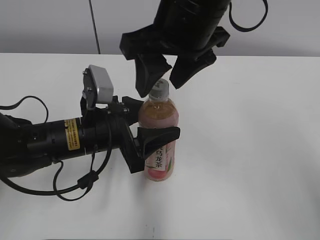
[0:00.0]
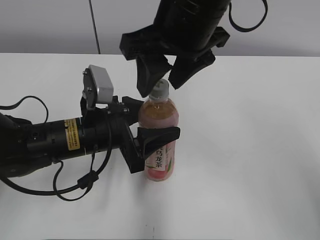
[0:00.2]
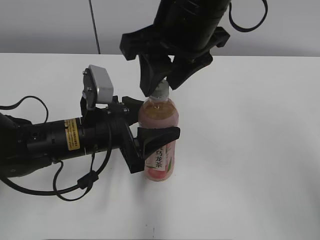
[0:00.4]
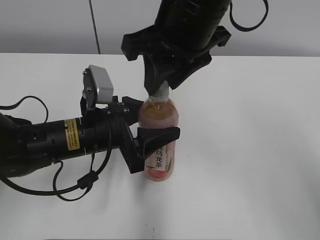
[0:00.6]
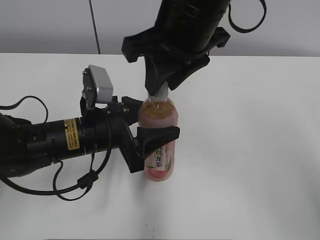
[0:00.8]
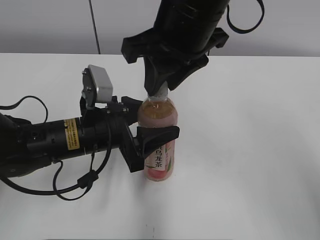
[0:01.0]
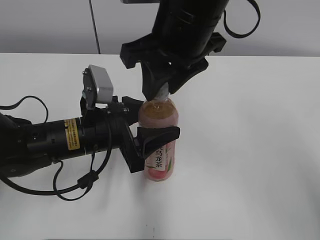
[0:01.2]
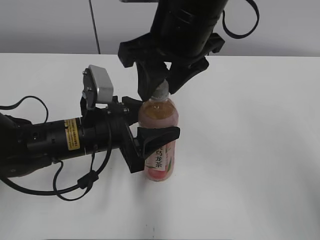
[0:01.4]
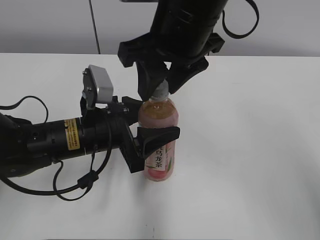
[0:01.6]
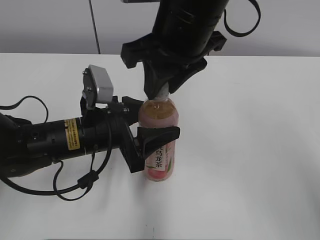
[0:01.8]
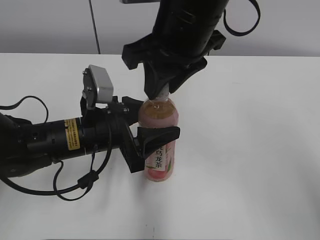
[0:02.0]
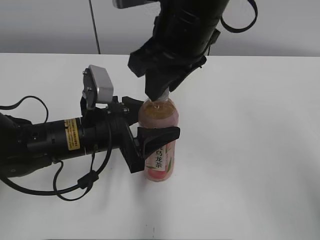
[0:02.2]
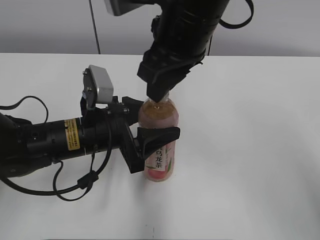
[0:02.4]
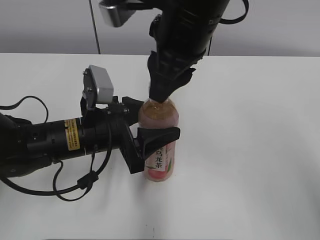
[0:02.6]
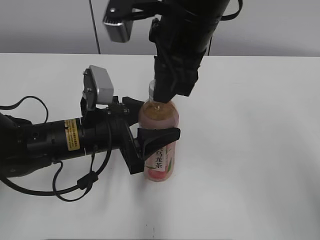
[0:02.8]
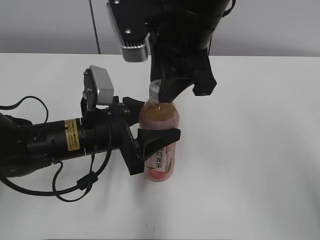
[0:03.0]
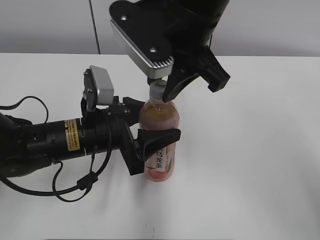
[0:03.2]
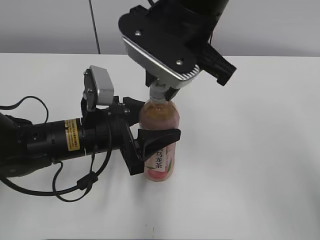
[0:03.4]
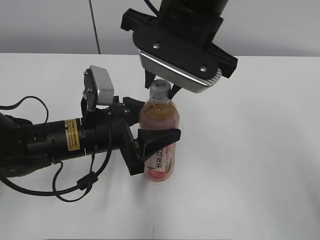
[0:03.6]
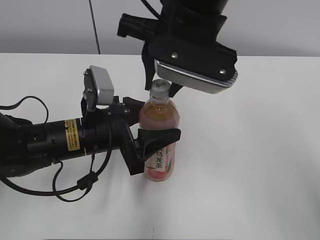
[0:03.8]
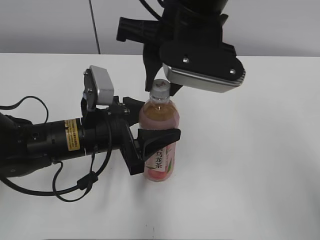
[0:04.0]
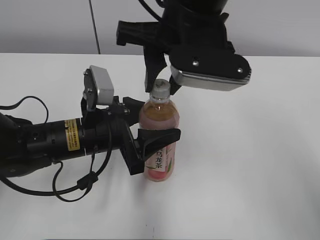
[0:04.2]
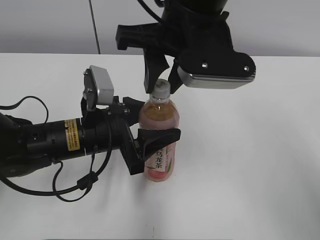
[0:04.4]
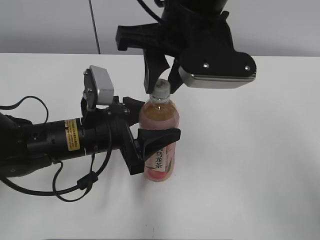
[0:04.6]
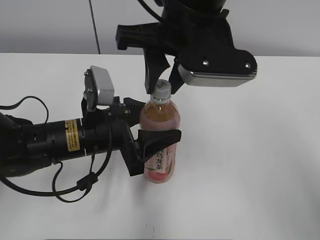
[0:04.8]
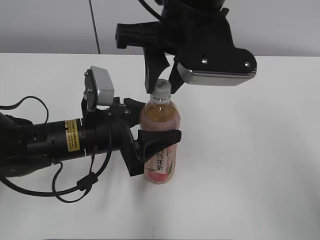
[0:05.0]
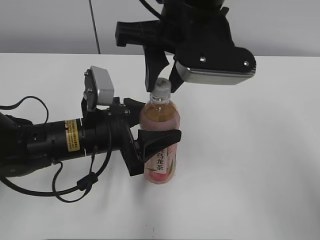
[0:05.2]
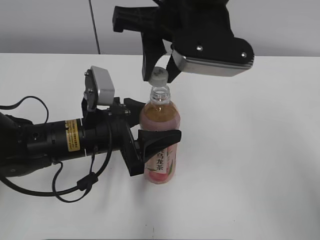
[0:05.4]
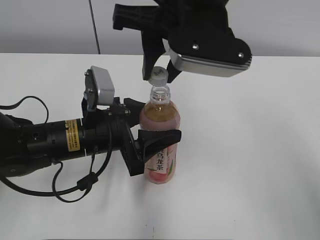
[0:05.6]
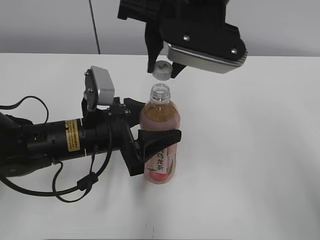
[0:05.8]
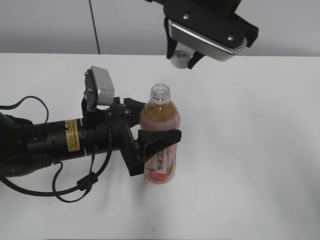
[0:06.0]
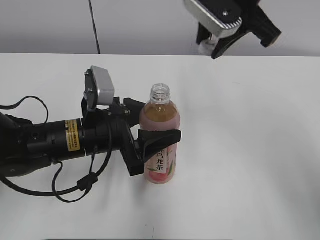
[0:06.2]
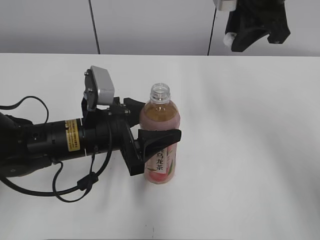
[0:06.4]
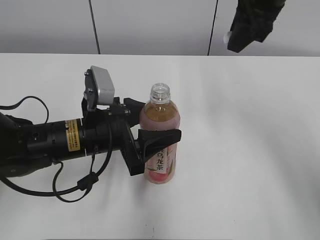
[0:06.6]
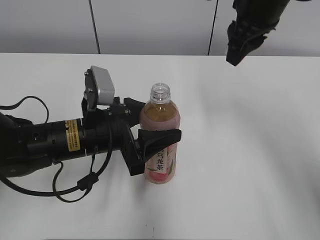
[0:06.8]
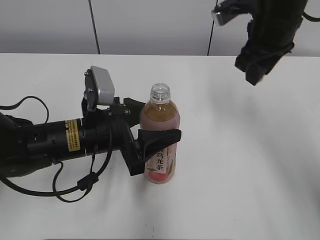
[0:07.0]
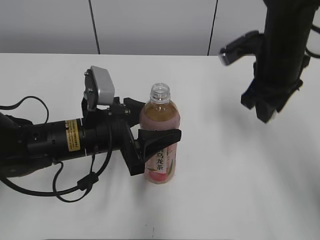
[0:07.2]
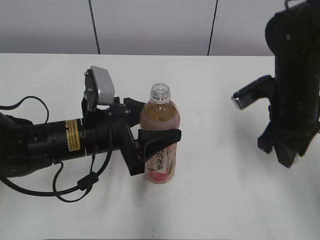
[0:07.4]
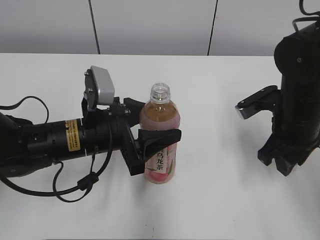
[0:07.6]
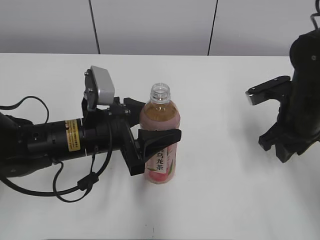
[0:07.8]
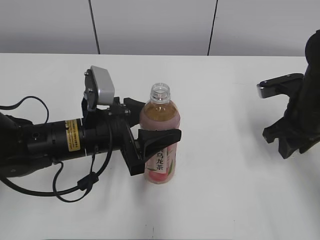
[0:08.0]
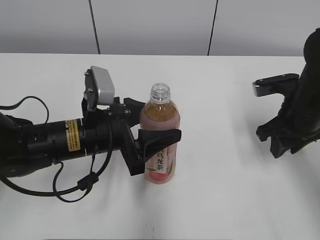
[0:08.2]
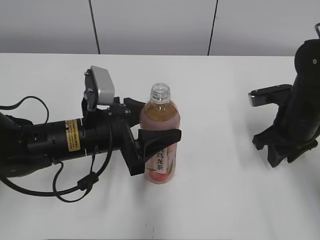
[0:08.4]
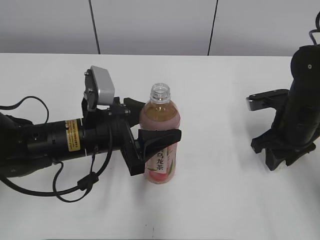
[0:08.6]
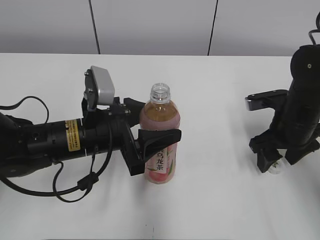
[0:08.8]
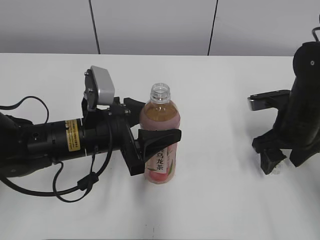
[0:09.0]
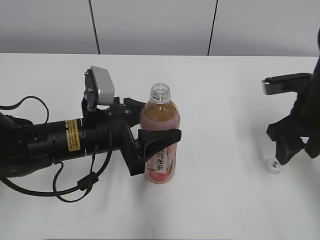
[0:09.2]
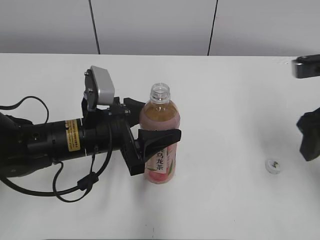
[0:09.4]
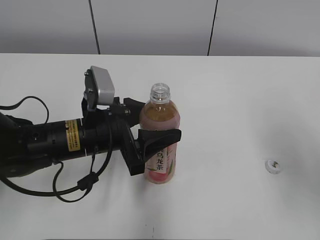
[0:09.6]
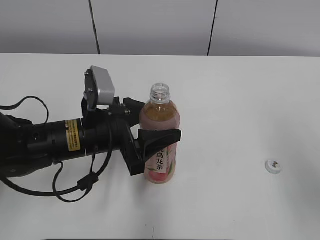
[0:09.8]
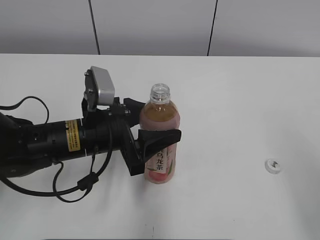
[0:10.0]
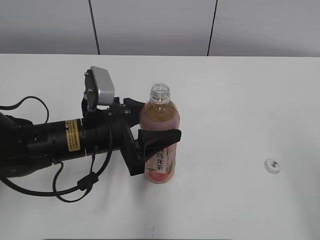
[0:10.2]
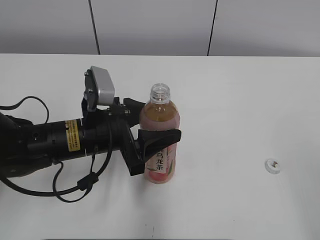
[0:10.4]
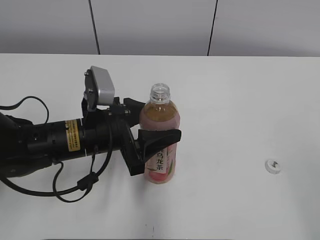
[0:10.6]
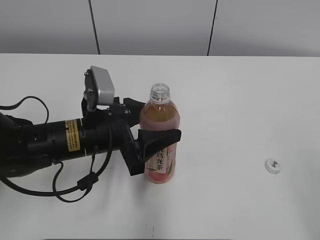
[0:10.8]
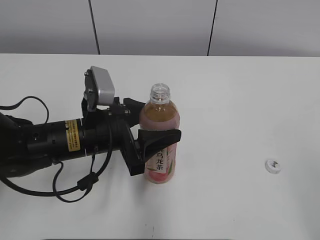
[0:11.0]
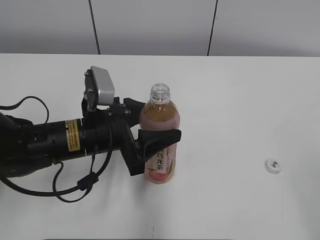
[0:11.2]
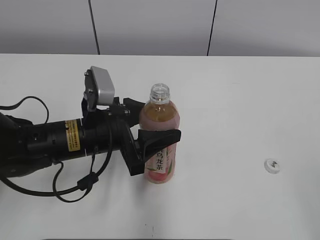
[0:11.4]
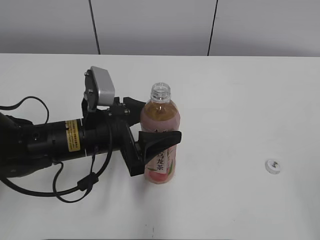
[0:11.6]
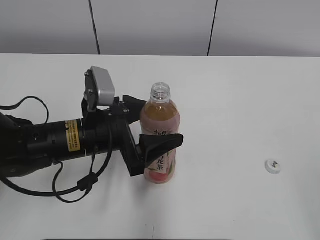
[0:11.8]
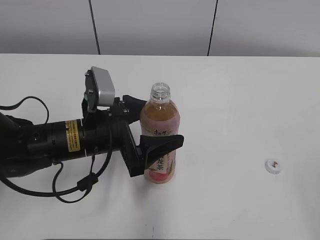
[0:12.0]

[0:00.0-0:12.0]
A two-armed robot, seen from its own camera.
Step, 0:05.2 to 0:08.6: Place the bottle cap on the right.
0:00.0 to 0:01.6: The right gripper closes, then reopens.
0:01.6 to 0:03.0: The right gripper closes up.
0:06.0 to 0:07.6: The right gripper shifts about 20 cm downward and to the right.
0:07.6 to 0:09.0: The right gripper opens.
0:09.0 to 0:10.4: The right gripper goes approximately 30 cm backward and upward.
0:10.4 to 0:12.0: The left gripper opens up.

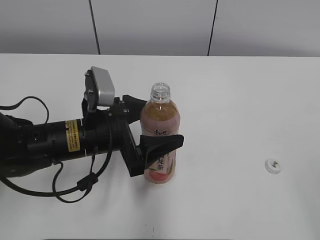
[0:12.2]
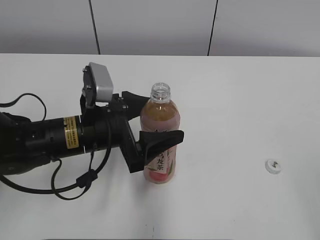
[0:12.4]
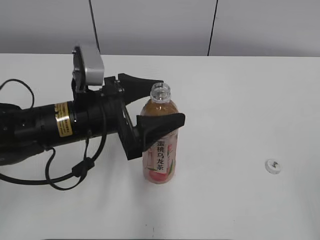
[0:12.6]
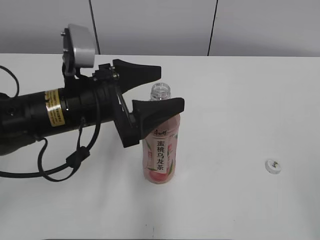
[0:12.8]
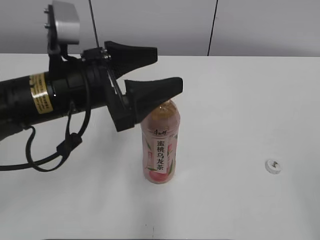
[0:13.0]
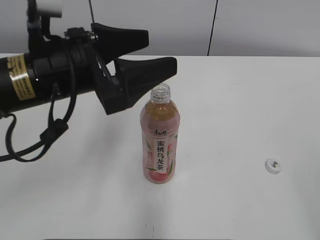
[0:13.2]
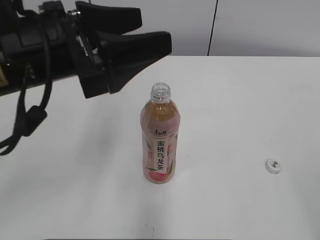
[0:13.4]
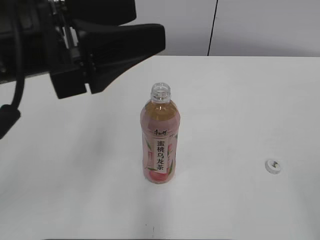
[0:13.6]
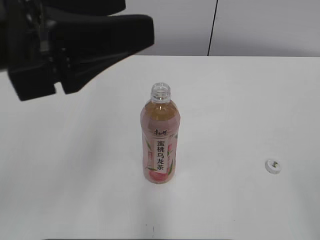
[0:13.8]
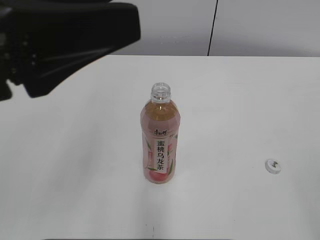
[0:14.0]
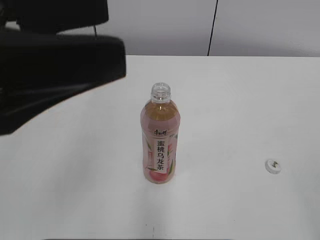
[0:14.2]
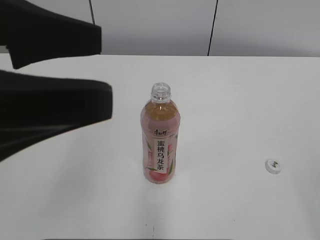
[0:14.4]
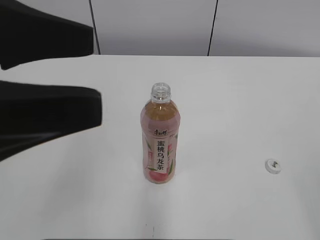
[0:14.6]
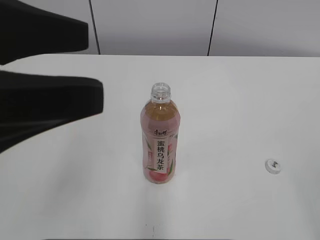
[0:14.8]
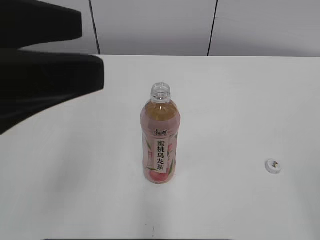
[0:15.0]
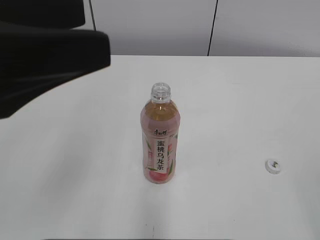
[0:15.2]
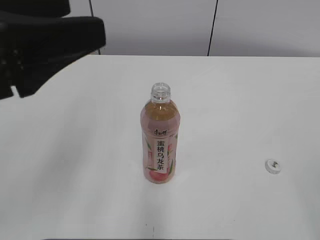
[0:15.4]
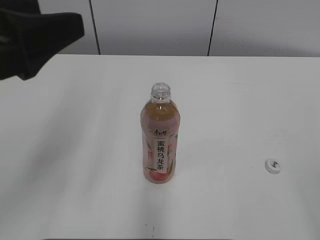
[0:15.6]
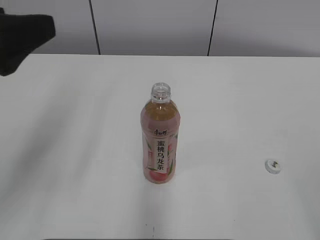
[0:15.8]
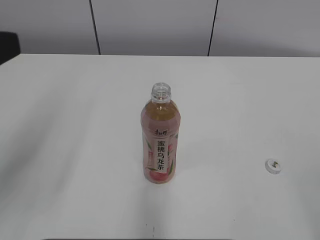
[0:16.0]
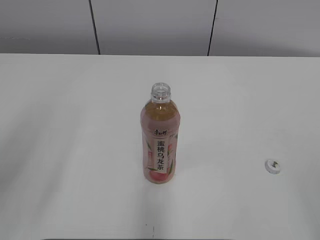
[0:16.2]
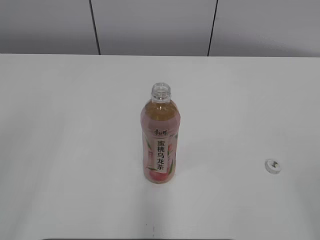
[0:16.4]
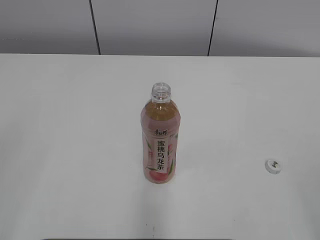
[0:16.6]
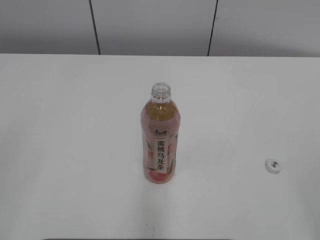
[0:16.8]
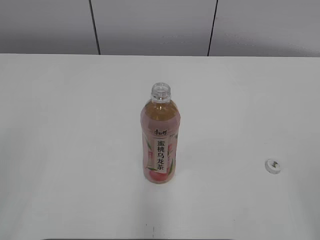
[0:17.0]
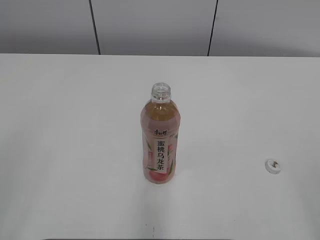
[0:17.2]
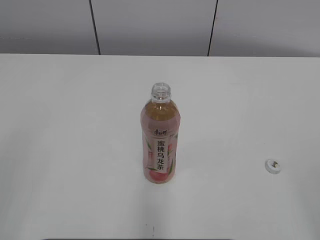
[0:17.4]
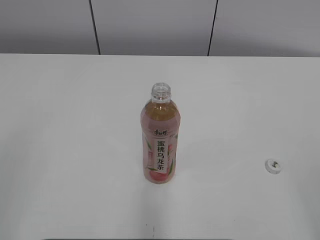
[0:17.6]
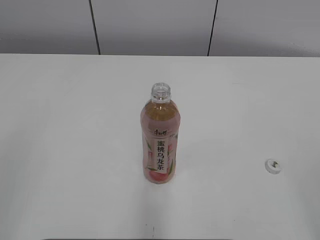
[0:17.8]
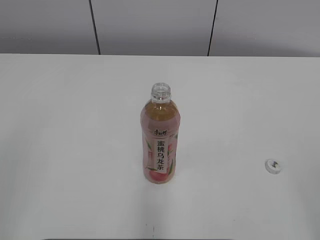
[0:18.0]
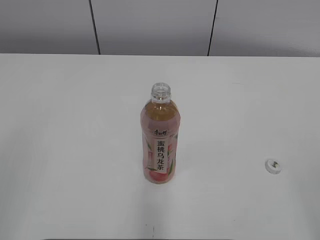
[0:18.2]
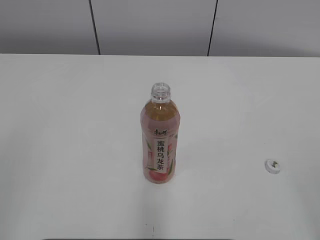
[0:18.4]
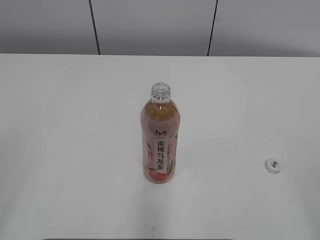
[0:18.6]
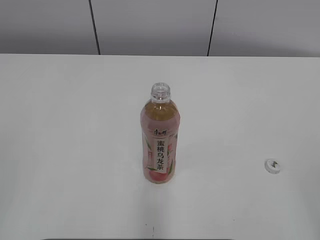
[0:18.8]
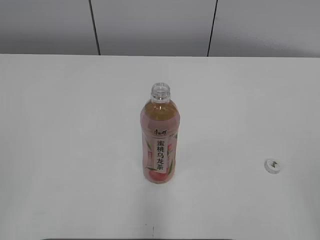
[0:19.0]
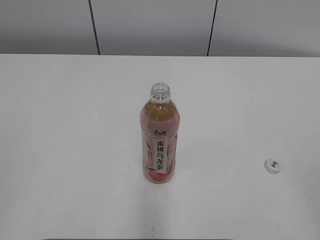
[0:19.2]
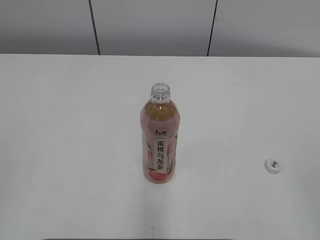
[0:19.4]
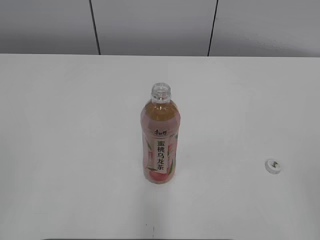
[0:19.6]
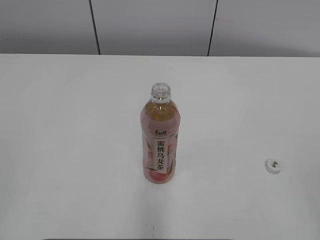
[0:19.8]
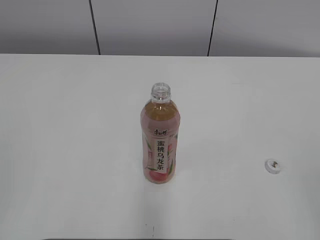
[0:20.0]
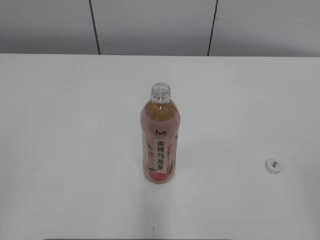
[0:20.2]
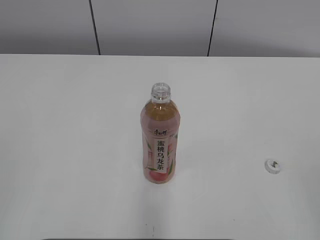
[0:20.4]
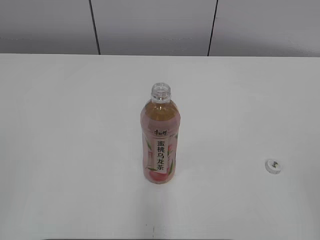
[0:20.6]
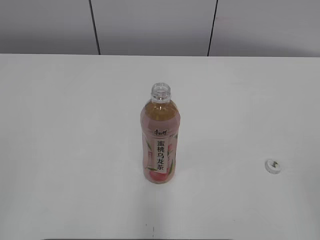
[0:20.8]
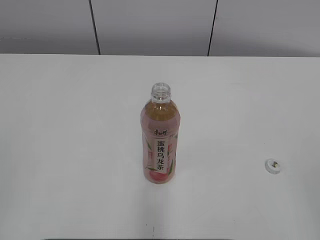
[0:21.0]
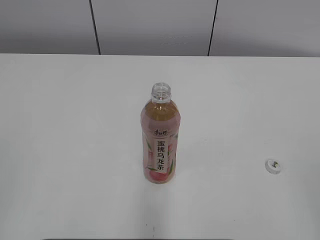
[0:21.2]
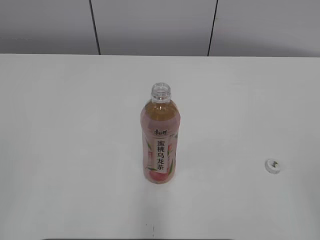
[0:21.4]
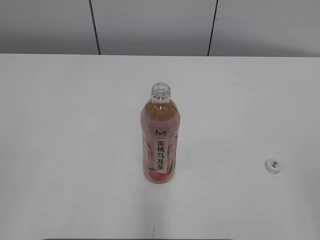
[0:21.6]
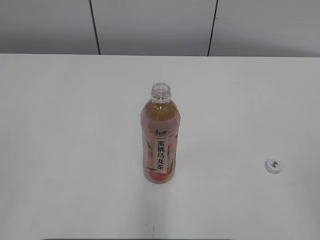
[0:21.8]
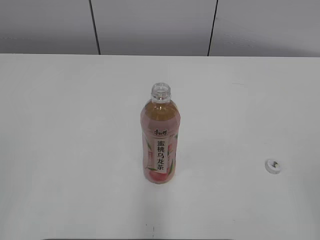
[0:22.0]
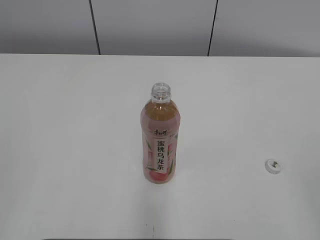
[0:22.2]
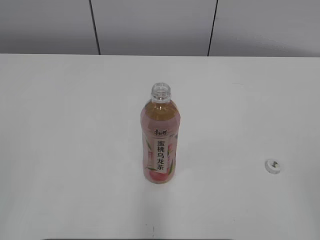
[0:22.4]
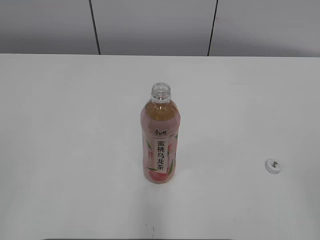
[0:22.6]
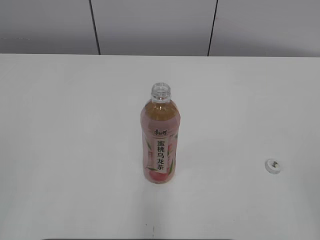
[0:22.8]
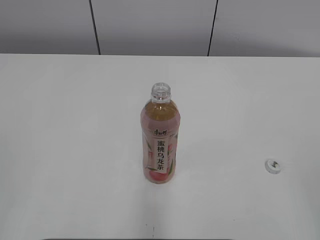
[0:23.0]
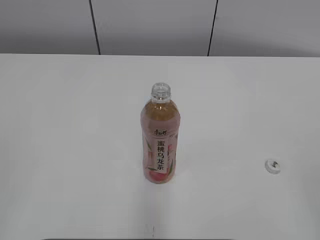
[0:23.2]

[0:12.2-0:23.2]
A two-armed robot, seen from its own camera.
0:12.2 to 0:13.8: The left gripper moves upward, roughly 20 cm.
0:15.4 to 0:17.0: The left gripper shifts roughly 20 cm backward and to the left.
0:20.0 to 0:23.2: Neither gripper changes place.
